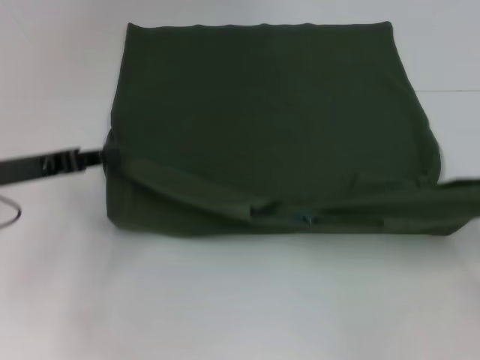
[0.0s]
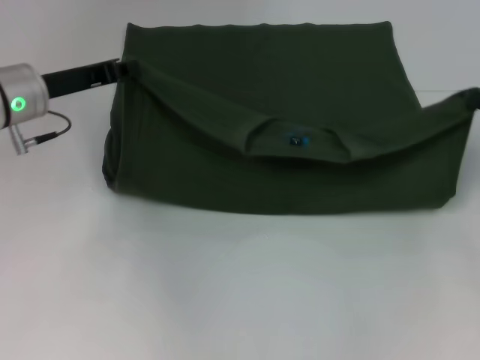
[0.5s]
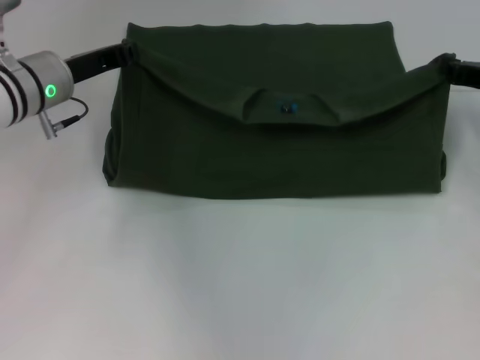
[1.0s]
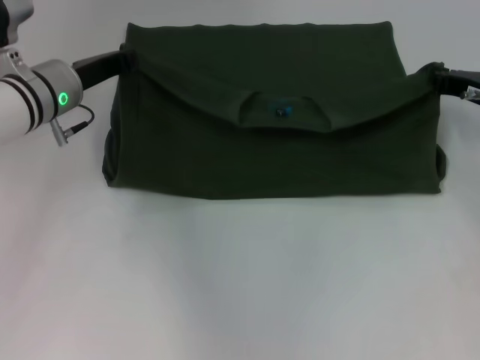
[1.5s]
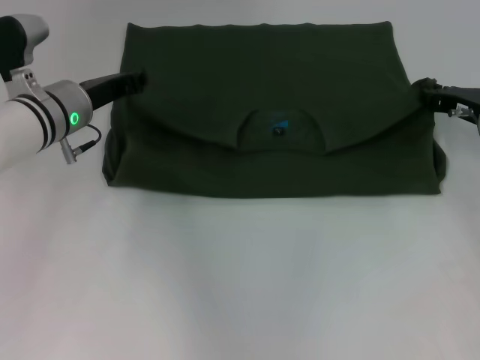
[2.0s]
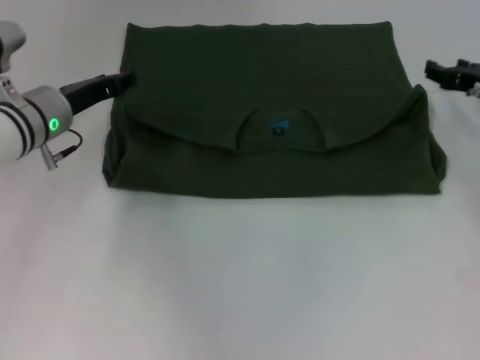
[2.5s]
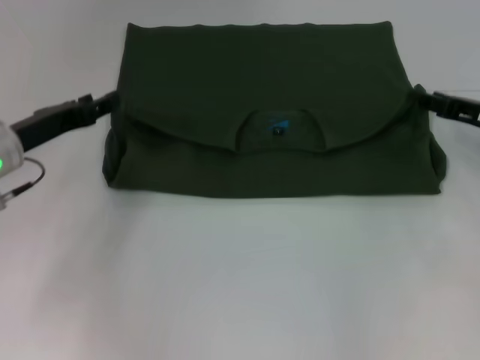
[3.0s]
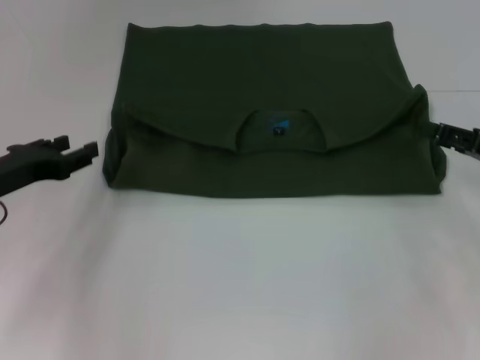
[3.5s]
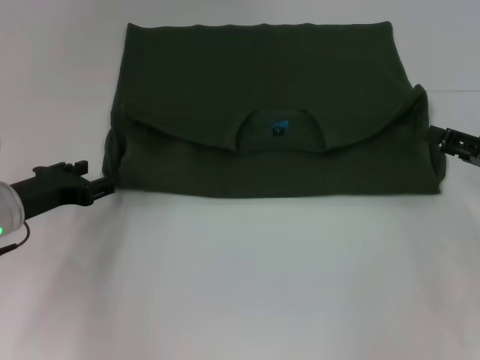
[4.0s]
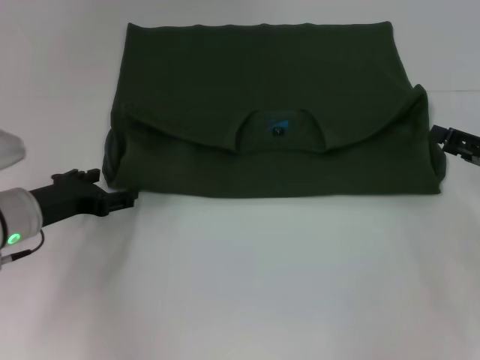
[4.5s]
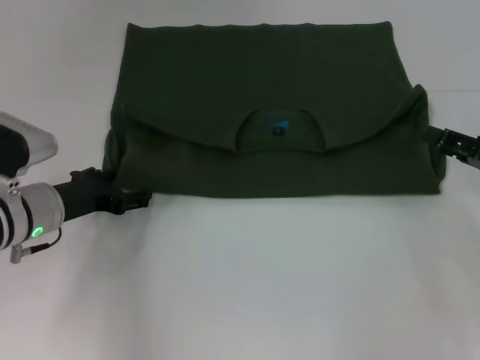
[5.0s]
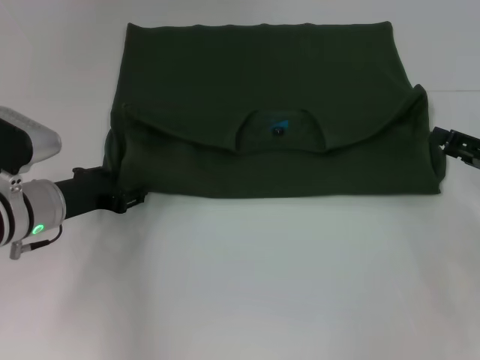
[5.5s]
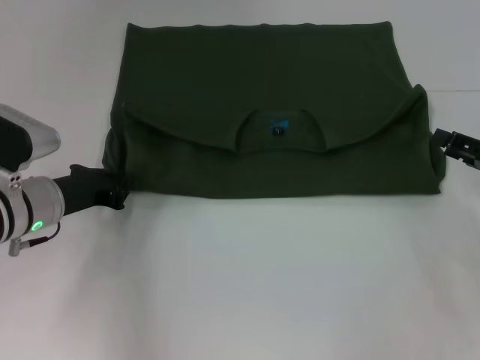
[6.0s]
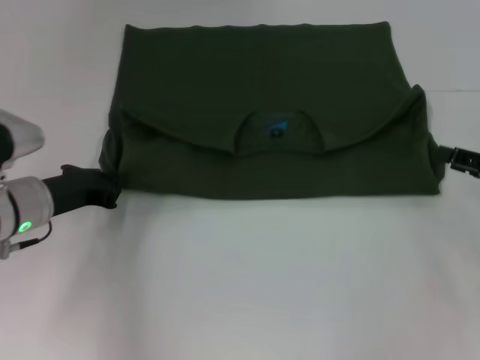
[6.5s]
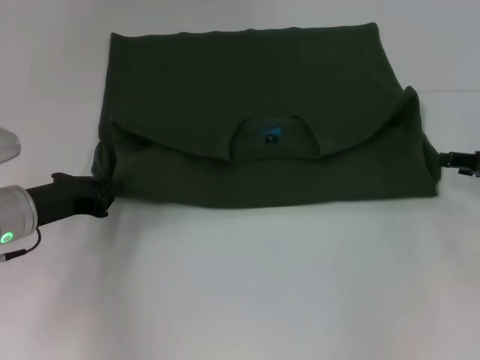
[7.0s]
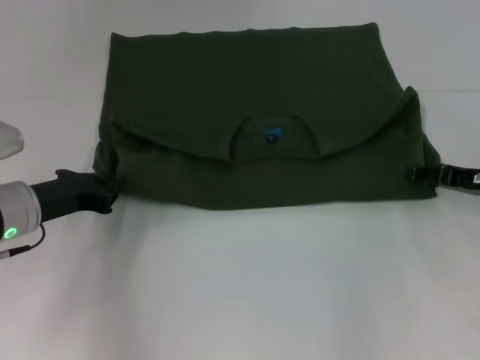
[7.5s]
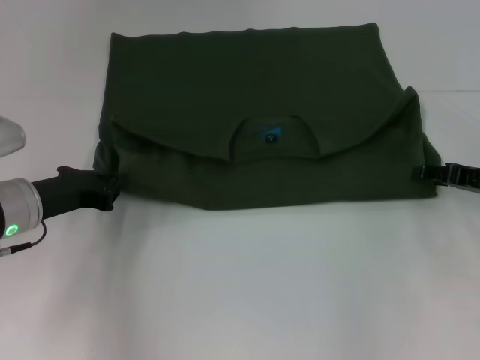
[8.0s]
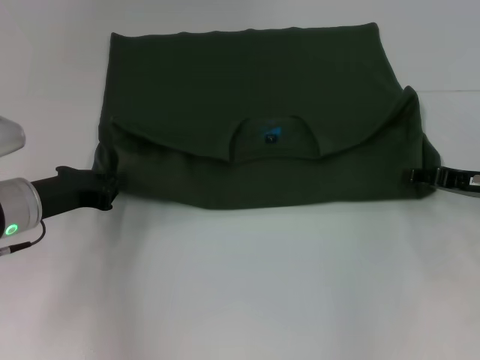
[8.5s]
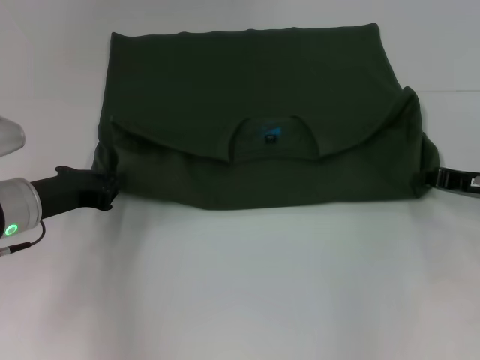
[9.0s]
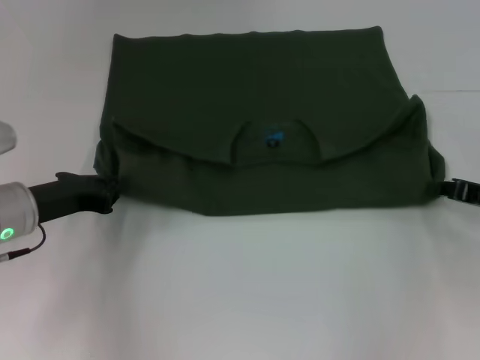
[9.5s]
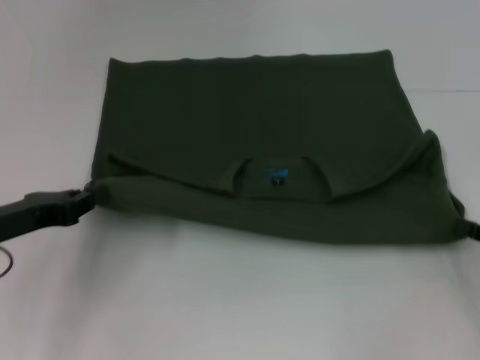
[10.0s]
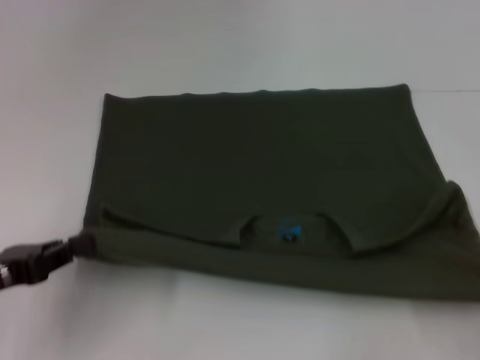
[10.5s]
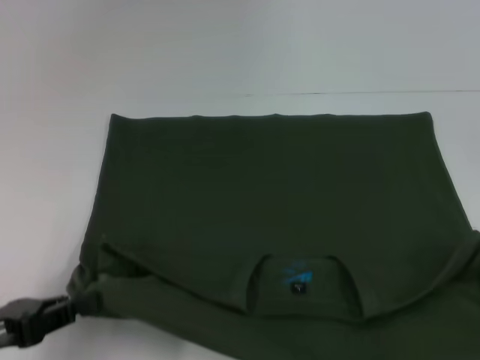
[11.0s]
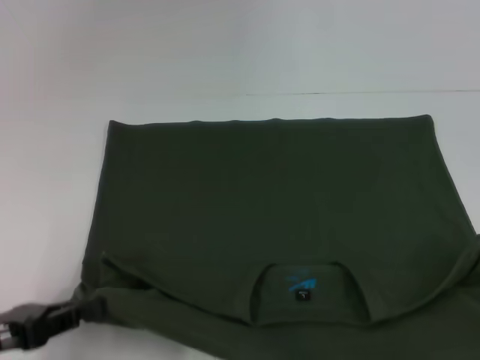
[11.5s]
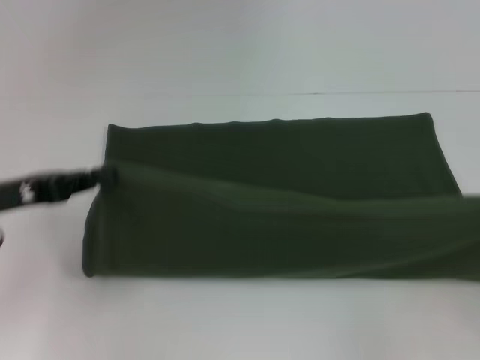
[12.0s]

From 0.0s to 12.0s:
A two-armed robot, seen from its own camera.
Step, from 0.0s to 2.0s: Fold the clothes with your left hand.
Step, from 0.0s to 2.0s: Fold the clothes with your right hand.
Step, from 2.5s to 11.0s: Pull the clothes with your left hand.
Step, from 2.5s to 11.0s: Pull the clothes with your right hand.
From 0.0s to 2.0s: The left gripper goes about 15 cm forward and to the right. Meanwhile the right gripper shifts roughly 20 cm forward and to the left.
From 2.0s to 4.0s: The right gripper goes about 10 cm backward and to the right, and opens its fingers, while the left gripper heads backward and to the left, covering about 10 cm, and opens up.
From 4.0s to 6.0s: There are only small adjustments of the grippers.
From 8.0s to 10.0s: The right gripper is displaced backward by about 10 cm, and closes its fingers, while the left gripper travels backward by roughly 5 cm.
From 10.0s to 12.0s: The left gripper goes backward and returns, roughly 10 cm each way, while the right gripper goes about 10 cm upward and to the right, and travels backward and back again, roughly 15 cm each way.

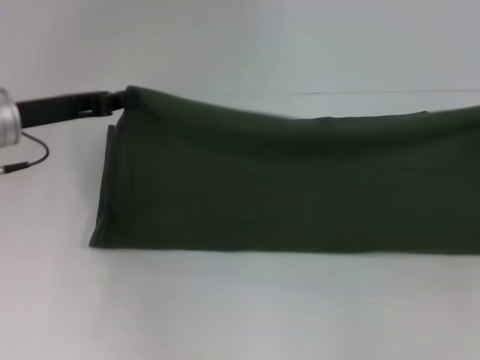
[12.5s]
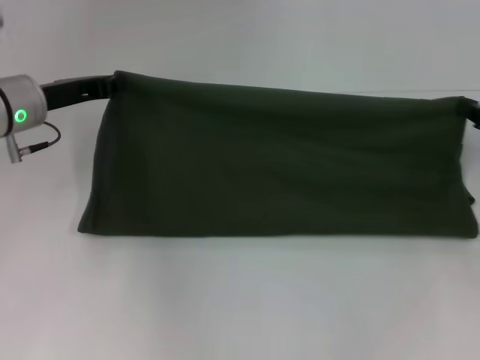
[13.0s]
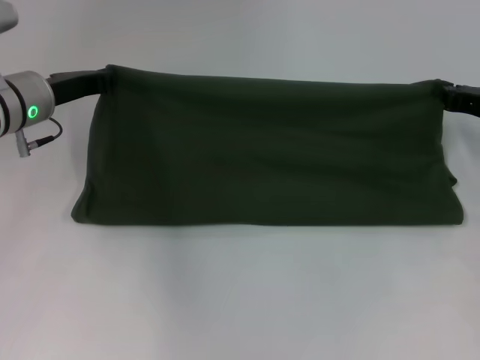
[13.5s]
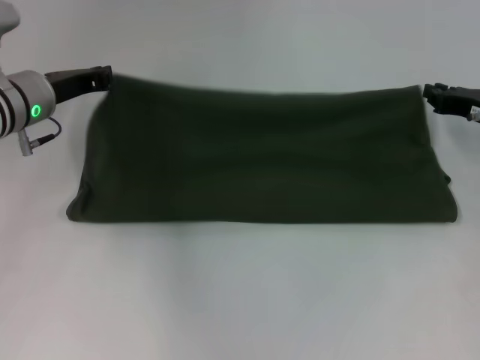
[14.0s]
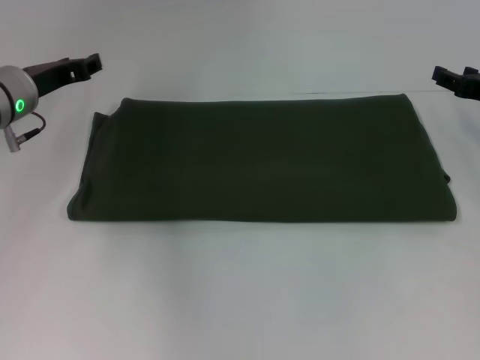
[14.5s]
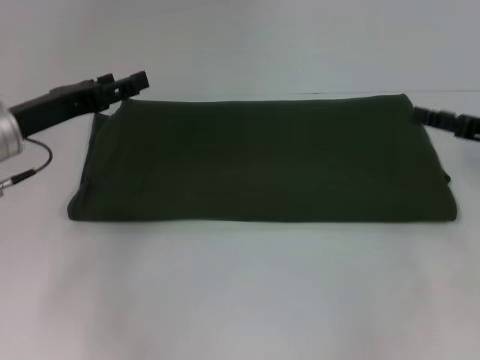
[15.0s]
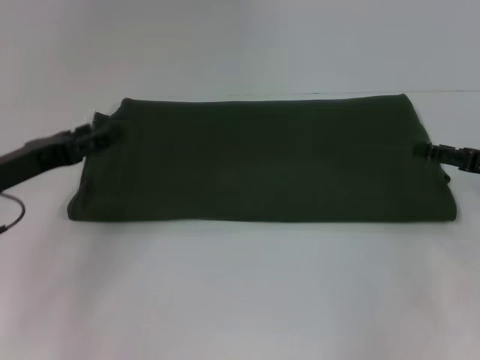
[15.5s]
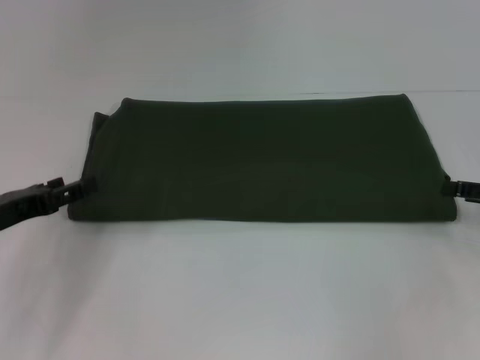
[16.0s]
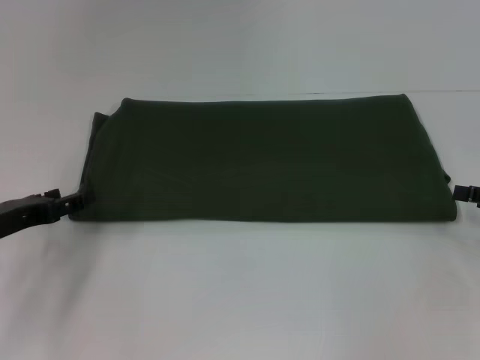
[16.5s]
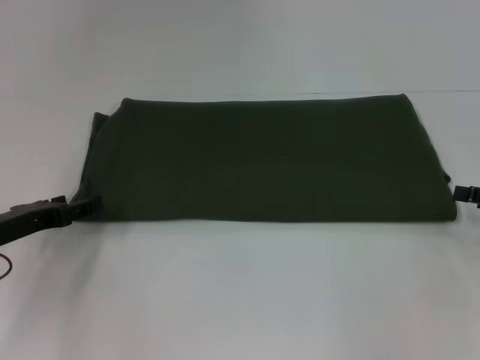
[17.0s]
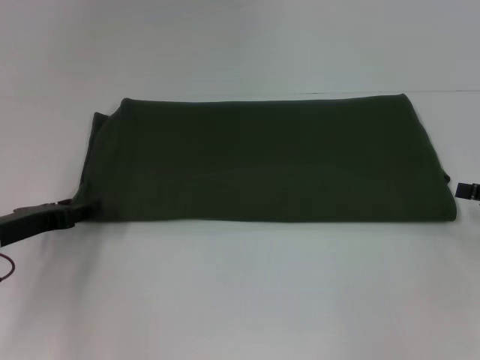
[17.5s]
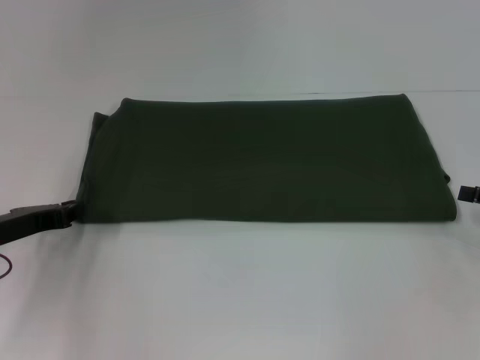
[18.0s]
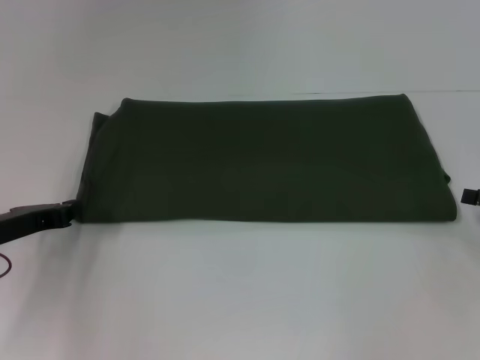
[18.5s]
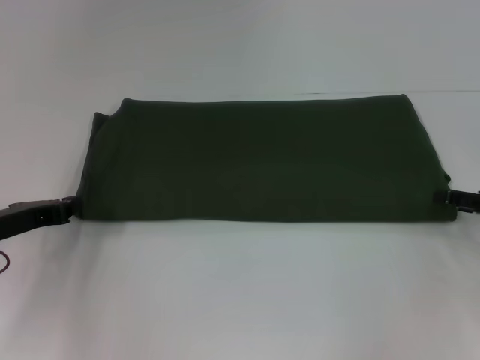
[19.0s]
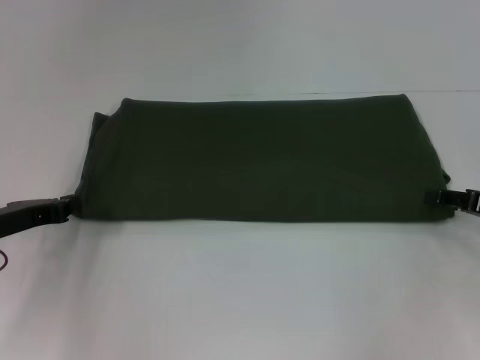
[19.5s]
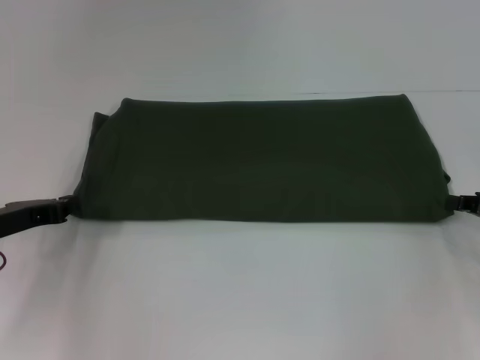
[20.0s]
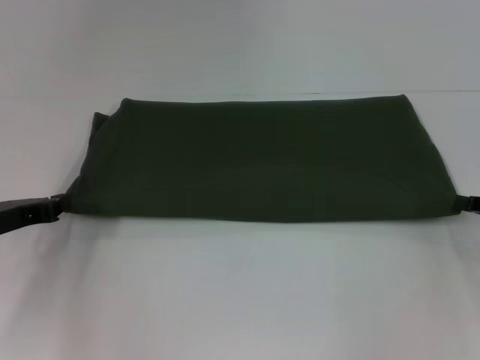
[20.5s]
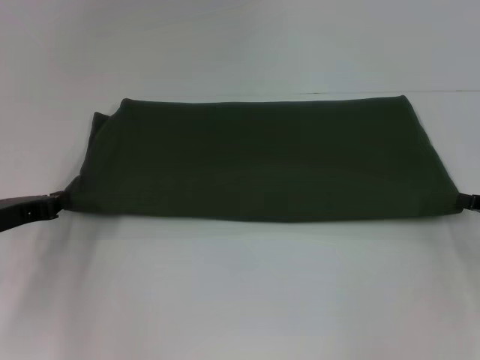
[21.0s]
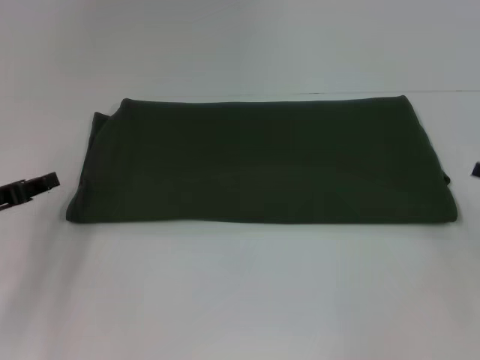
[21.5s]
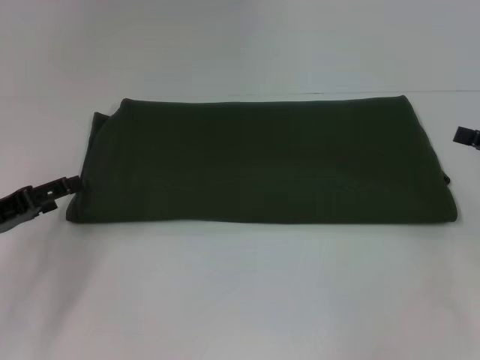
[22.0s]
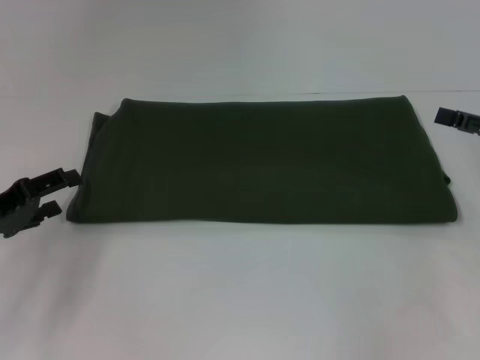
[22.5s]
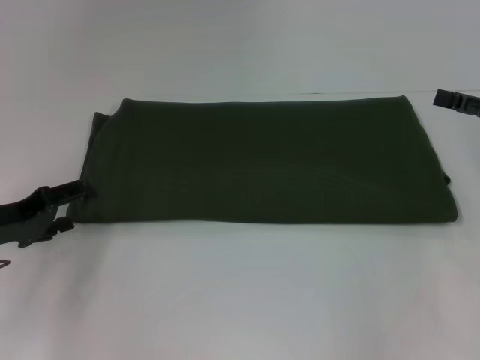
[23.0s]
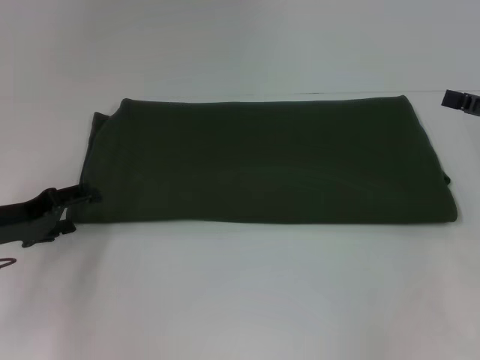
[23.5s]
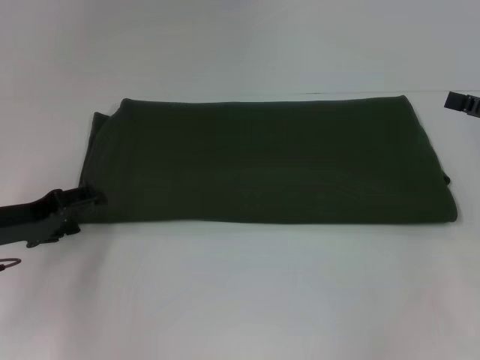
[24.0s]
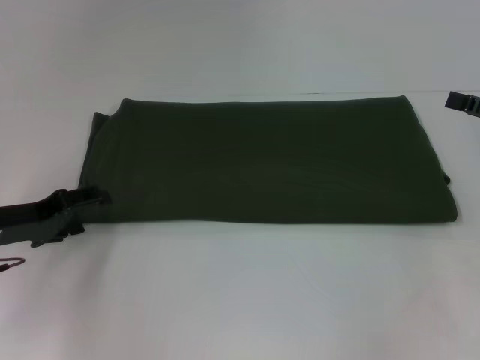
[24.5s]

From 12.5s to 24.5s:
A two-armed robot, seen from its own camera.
Step, from 12.5s to 14.0s: Fold the clothes with your right hand.
From 12.5s to 14.5s: The left gripper moves forward, approximately 5 cm, and opens. The right gripper goes approximately 15 cm forward and to the left, and opens.
From 14.5s to 16.5s: The left gripper goes some 15 cm backward and downward, and opens its fingers. Meanwhile the right gripper heads backward and to the right, covering approximately 10 cm, and opens.
From 16.5s to 18.5s: The left gripper closes up.
From 18.5s to 20.5s: The right gripper closes.
From 20.5s to 22.5s: The right gripper is displaced upward by about 5 cm, and opens. The left gripper opens up.
From 22.5s to 24.5s: The grippers move only a little.

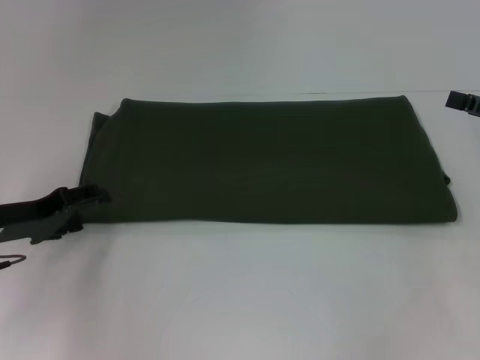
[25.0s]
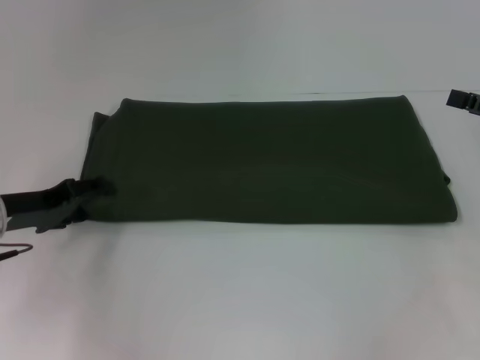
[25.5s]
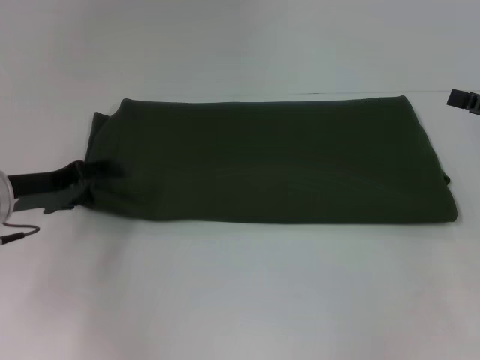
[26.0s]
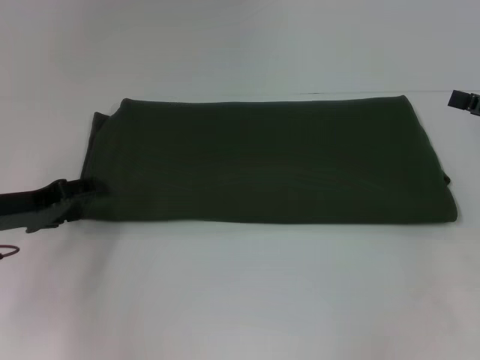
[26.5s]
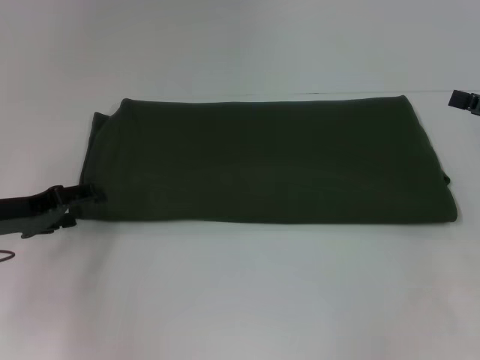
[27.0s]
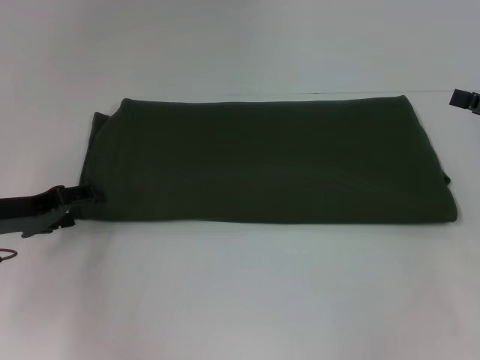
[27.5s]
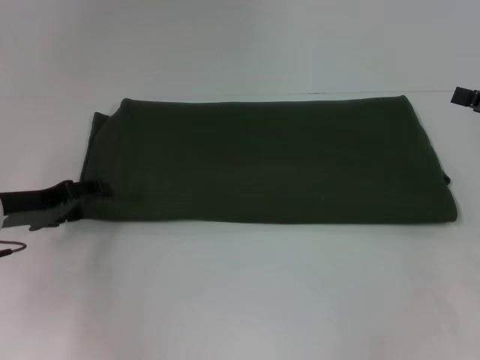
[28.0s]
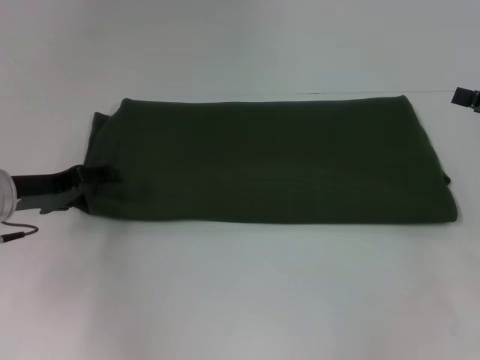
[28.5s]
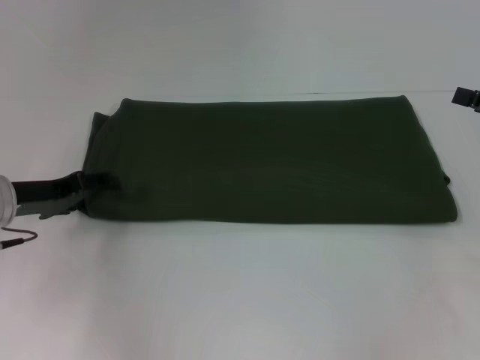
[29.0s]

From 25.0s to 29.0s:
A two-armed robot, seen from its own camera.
From 25.0s to 29.0s: The grippers stay close to where they were, moving slightly.
